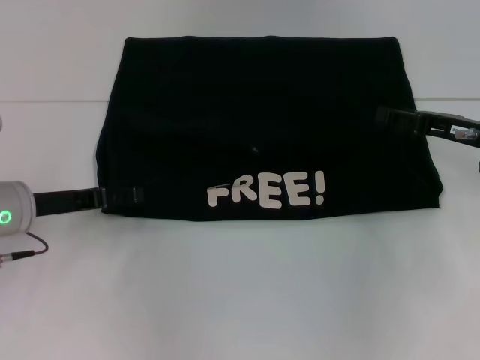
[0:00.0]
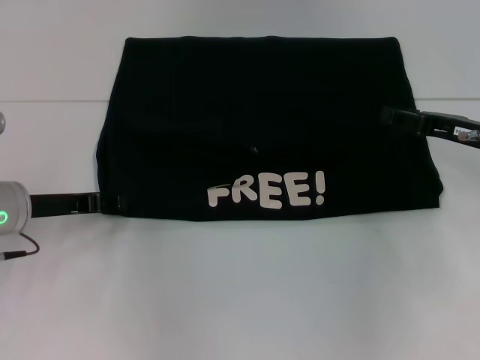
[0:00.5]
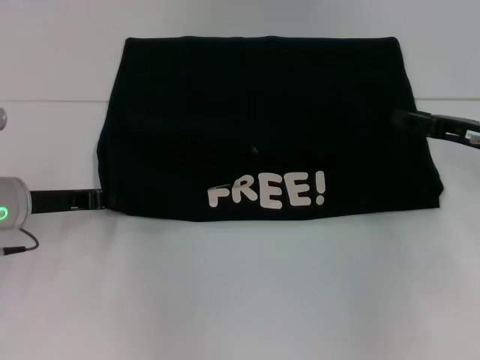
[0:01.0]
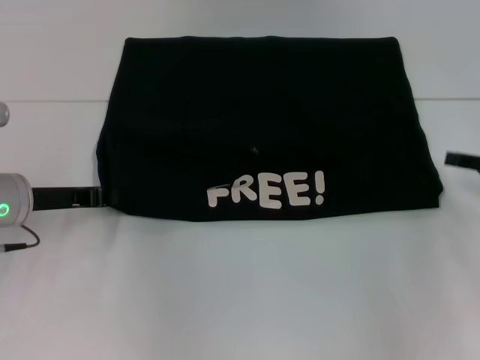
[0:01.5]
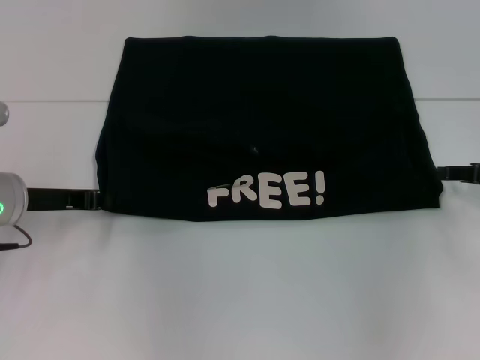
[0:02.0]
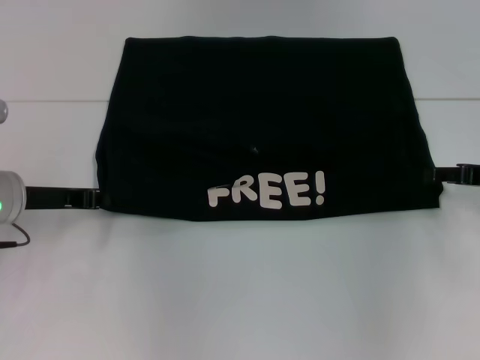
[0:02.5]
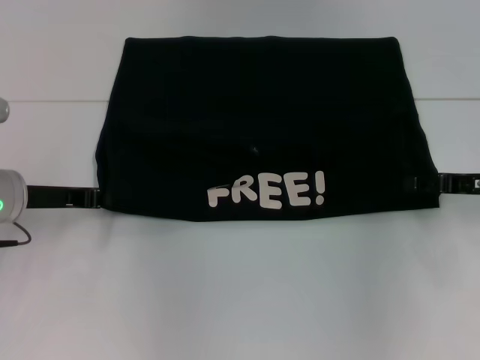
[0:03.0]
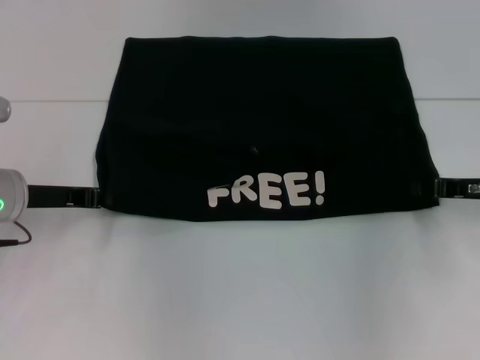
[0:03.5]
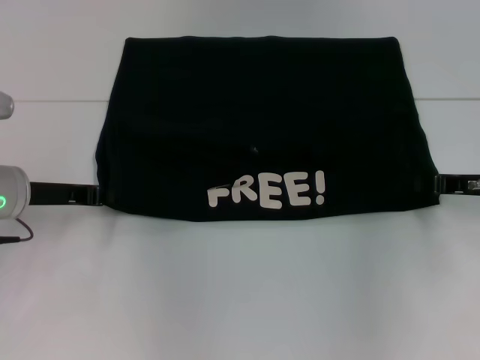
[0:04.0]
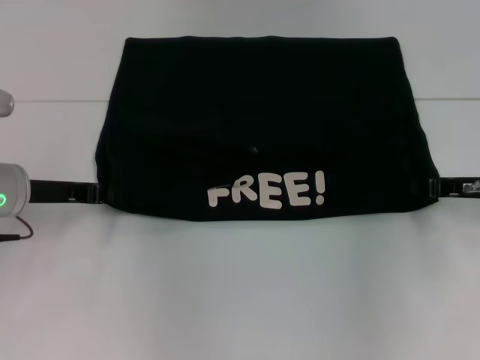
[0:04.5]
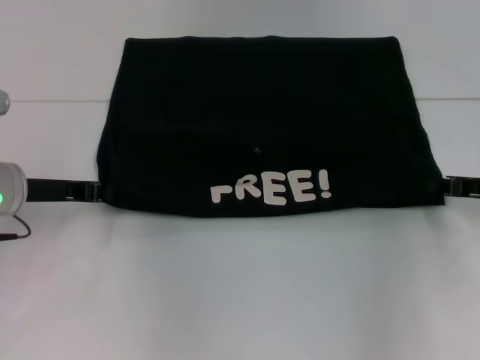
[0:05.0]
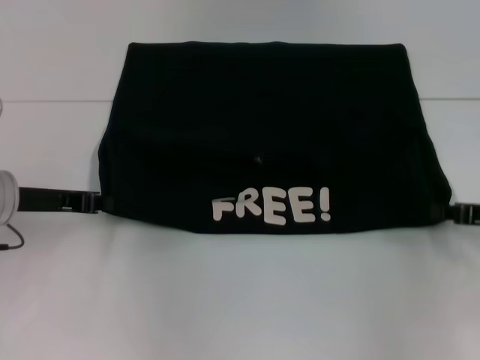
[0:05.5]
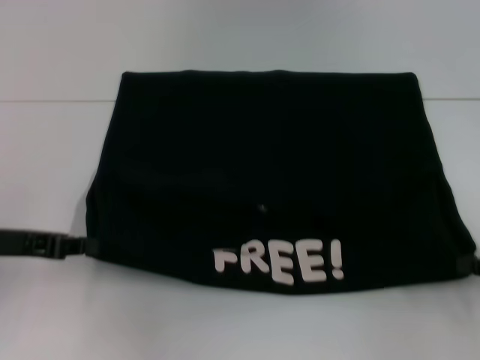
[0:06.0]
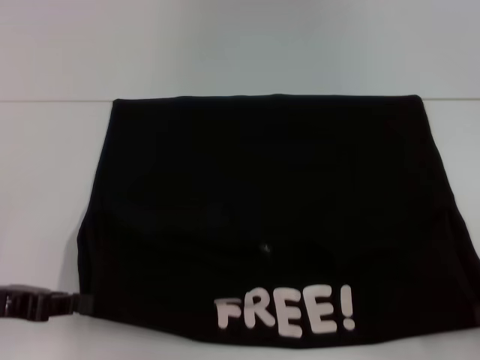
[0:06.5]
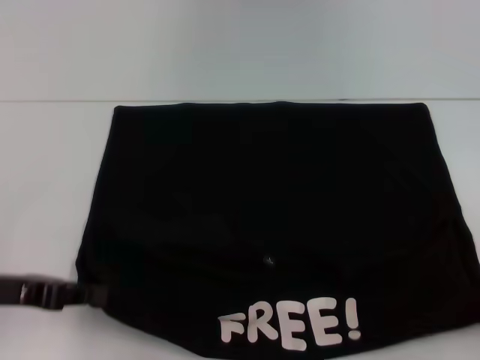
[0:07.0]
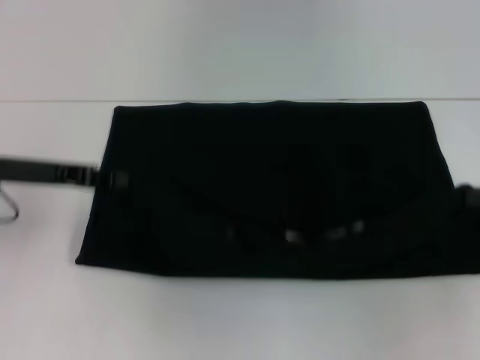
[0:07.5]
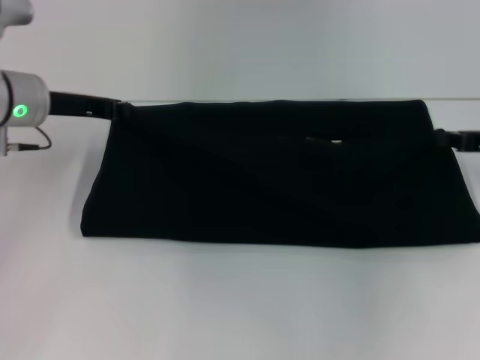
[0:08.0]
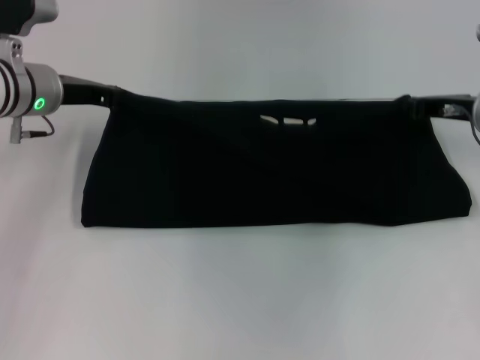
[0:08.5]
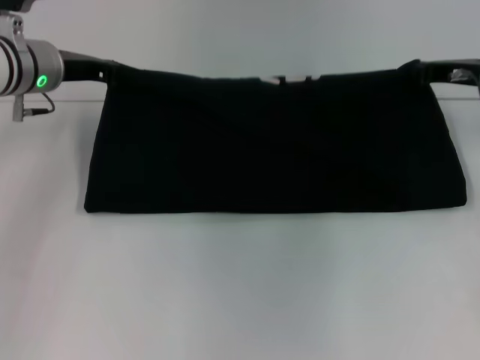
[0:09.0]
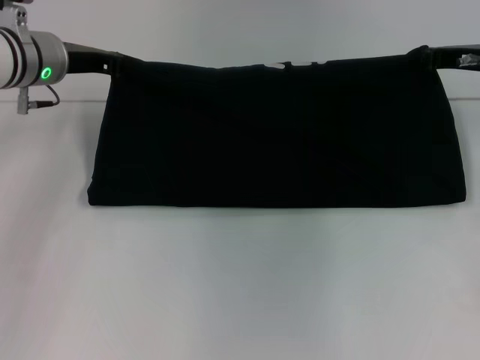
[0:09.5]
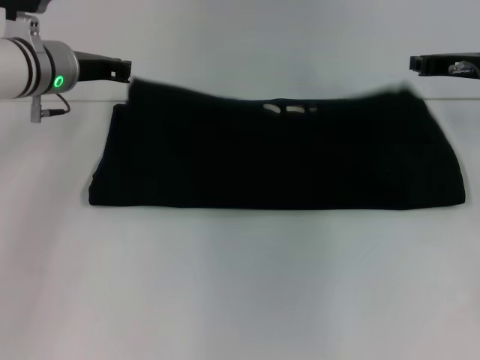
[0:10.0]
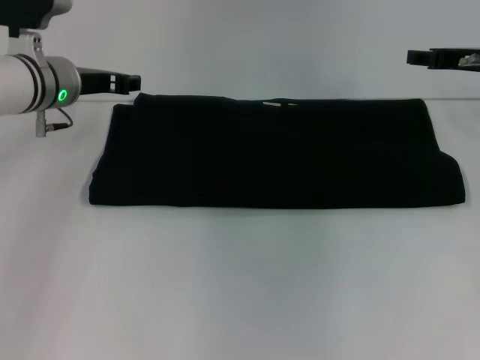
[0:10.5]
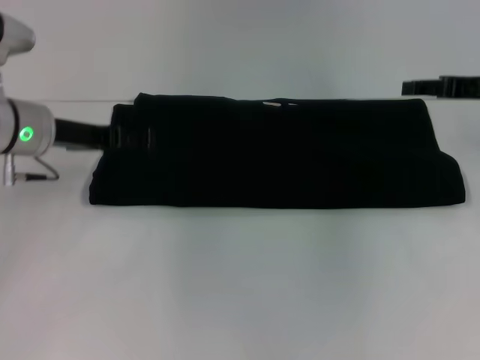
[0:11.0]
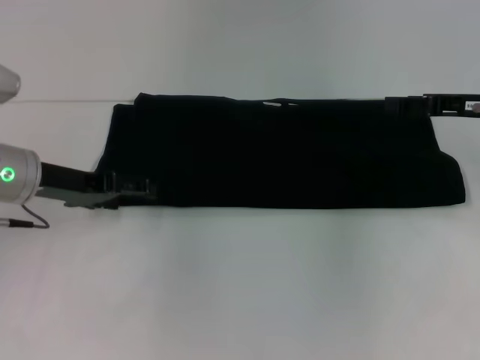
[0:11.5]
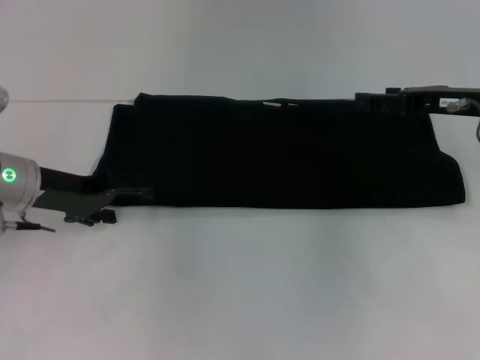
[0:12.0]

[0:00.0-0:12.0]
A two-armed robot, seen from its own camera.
Step, 0:00.0 to 0:06.5: Pull the clothes with your left hand.
Step, 0:00.0 to 0:06.5: Pull the clothes with your right hand.
Step, 0:07.0 to 0:11.0: Fold the clothes with your right hand.
0:00.0 to 0:02.0: The left gripper closes up. Meanwhile the right gripper shifts some 5 cm to the right.
0:02.0 to 0:04.0: The right gripper closes up.
0:04.0 to 0:06.0: The right gripper shifts some 10 cm backward and to the right. Meanwhile the left gripper travels backward by about 5 cm.
0:06.0 to 0:08.0: The grippers both shift forward by some 15 cm.
0:08.0 to 0:10.0: The right gripper shifts roughly 10 cm forward and to the left.
0:10.0 to 0:12.0: The left gripper travels backward by some 10 cm, and opens its fingers. Meanwhile the right gripper opens.

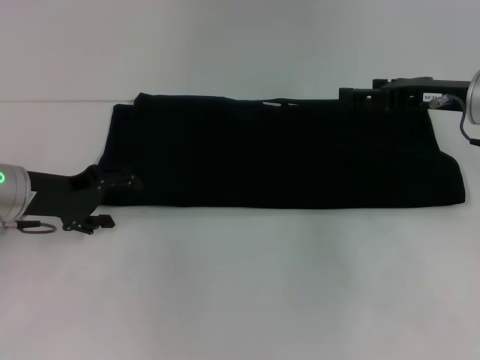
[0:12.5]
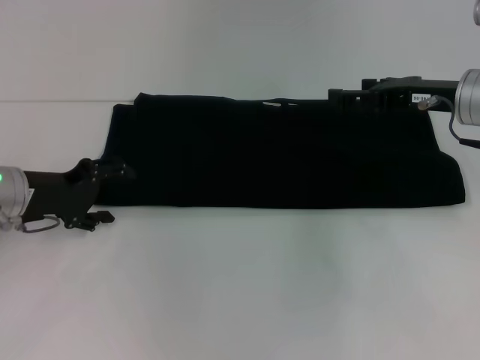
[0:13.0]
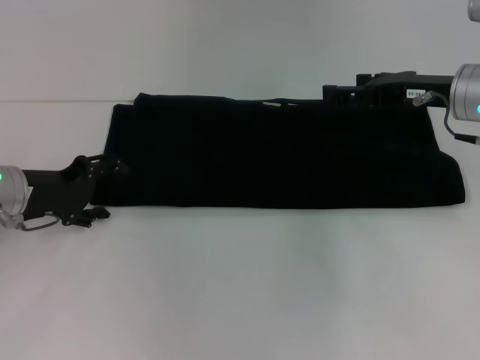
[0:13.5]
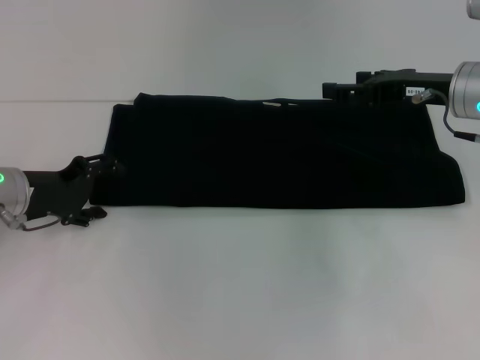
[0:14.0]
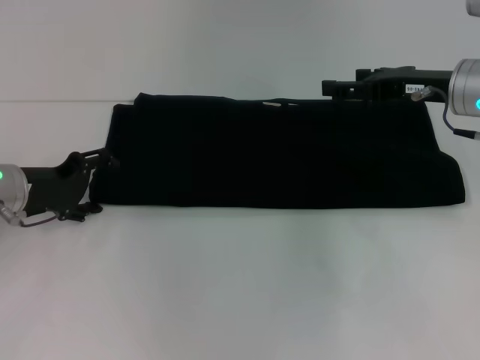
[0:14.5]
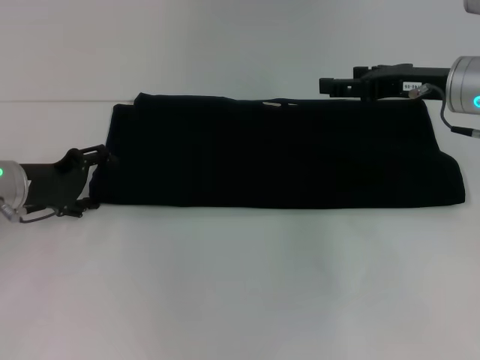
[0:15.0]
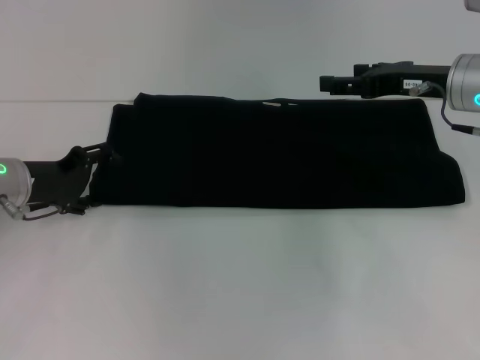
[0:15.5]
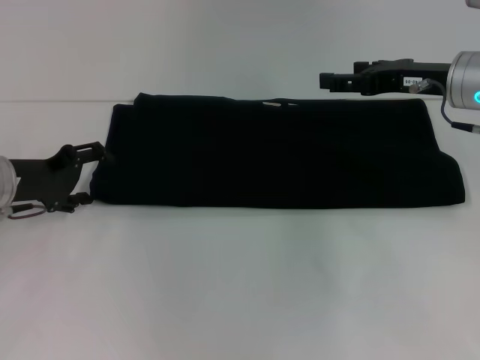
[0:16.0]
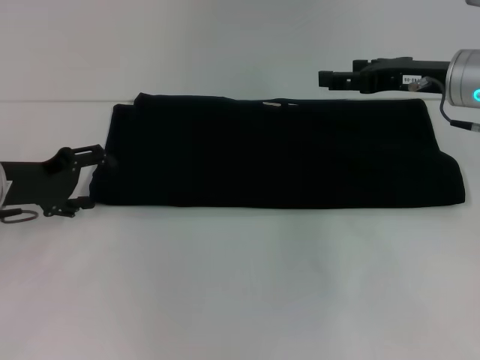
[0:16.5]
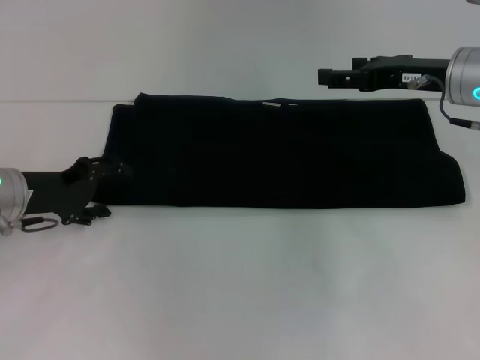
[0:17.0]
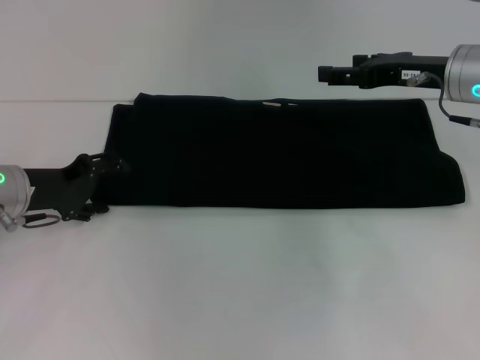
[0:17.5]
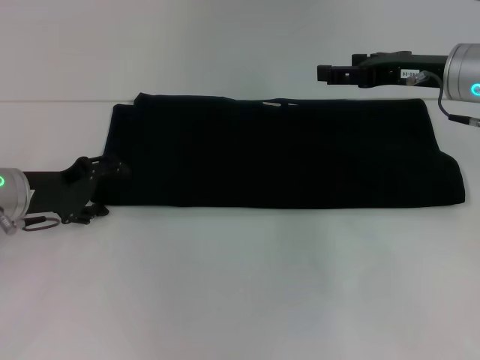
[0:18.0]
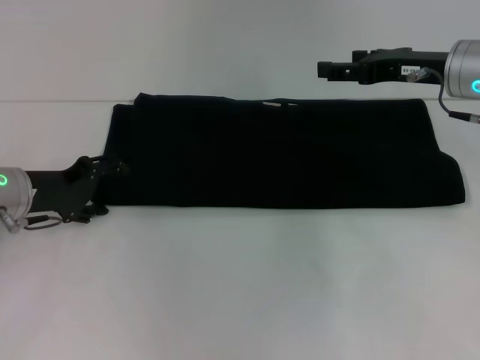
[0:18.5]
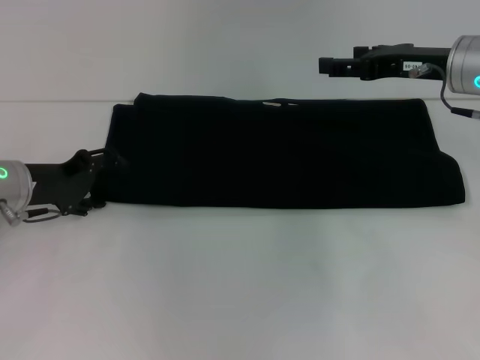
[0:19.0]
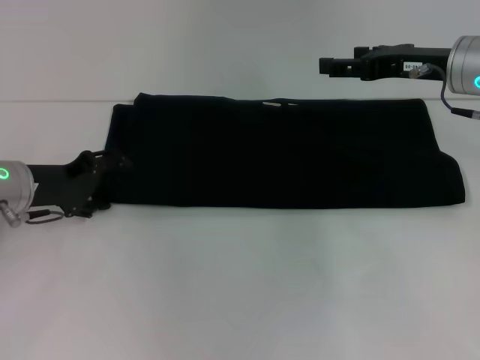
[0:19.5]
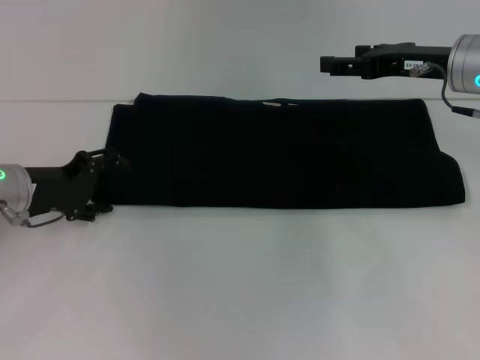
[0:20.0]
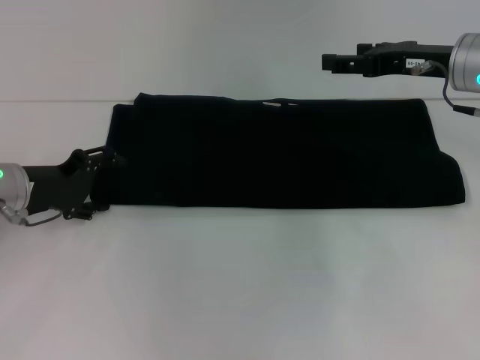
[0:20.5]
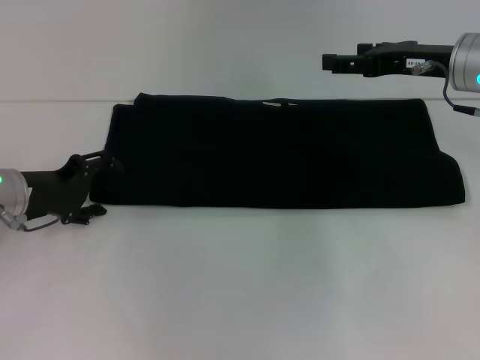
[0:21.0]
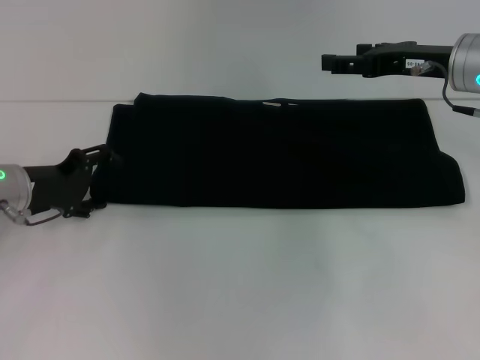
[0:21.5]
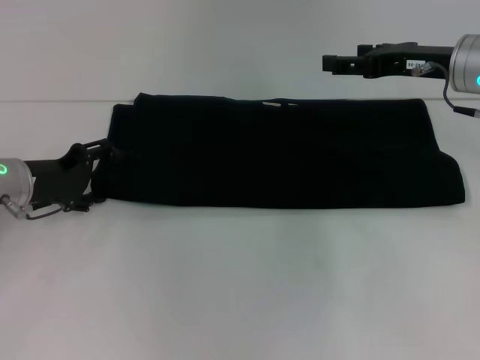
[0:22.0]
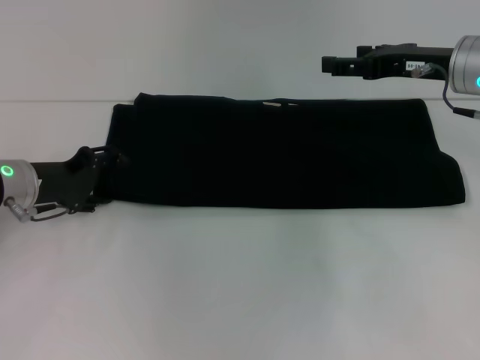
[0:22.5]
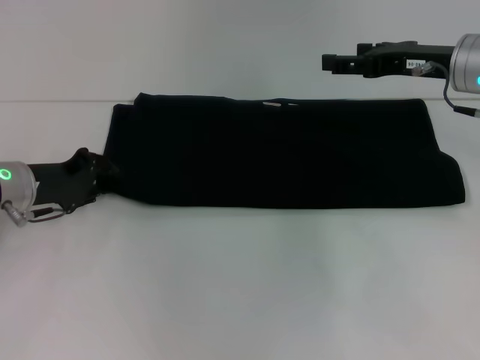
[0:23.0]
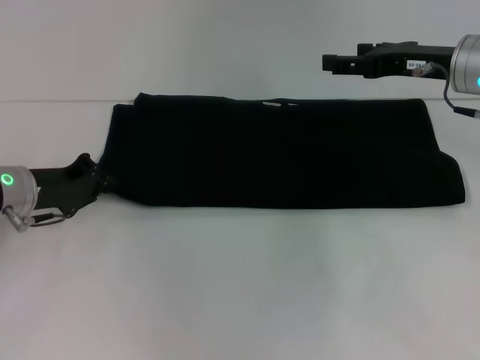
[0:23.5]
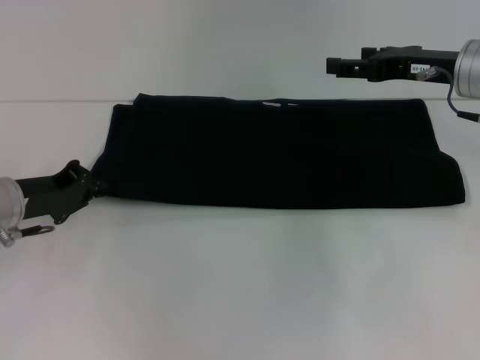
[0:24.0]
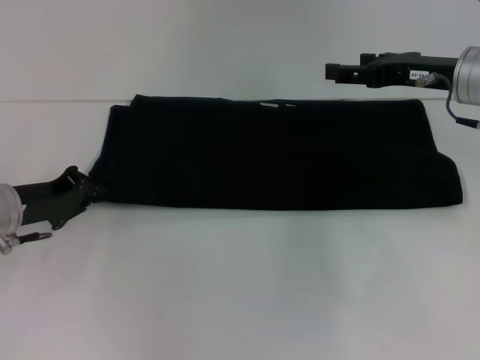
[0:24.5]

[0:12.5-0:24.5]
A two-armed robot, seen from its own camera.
0:12.5 to 0:20.5: The grippers make only small movements.
0:20.5 to 0:22.5: Both grippers stay about where they are.
0:22.5 to 0:24.5: The left gripper closes up.

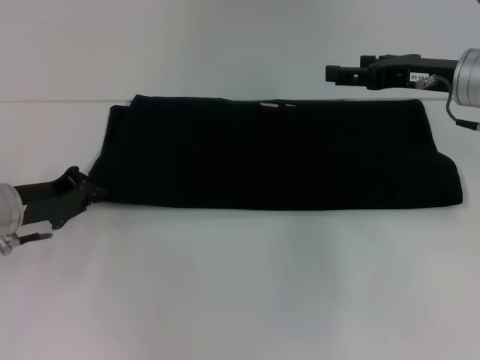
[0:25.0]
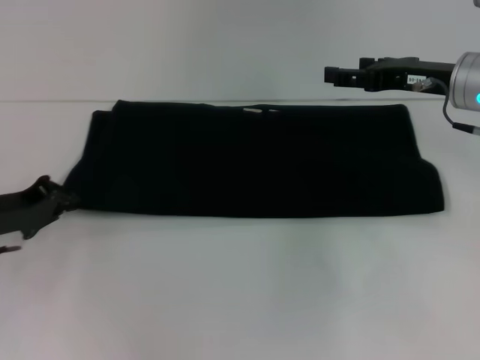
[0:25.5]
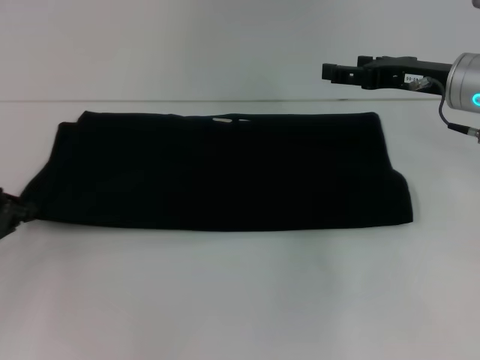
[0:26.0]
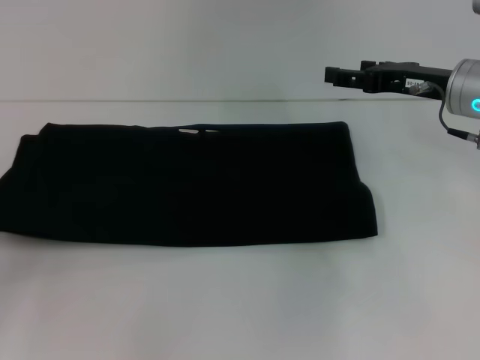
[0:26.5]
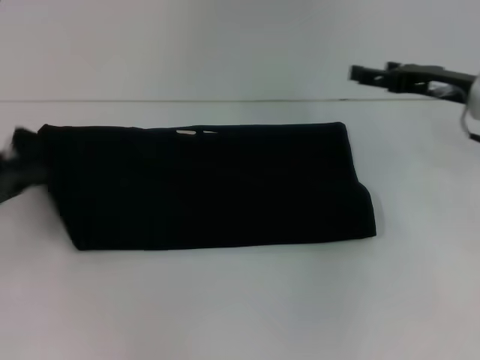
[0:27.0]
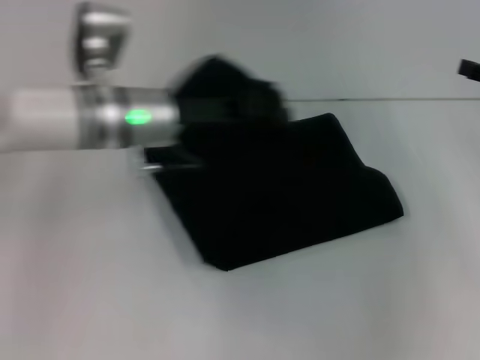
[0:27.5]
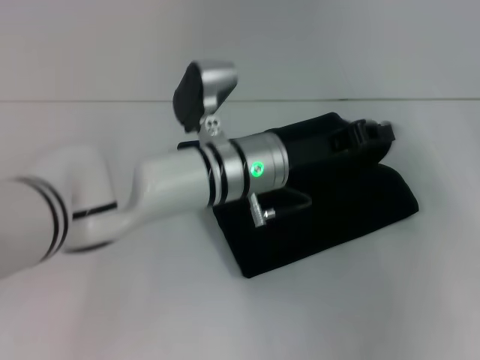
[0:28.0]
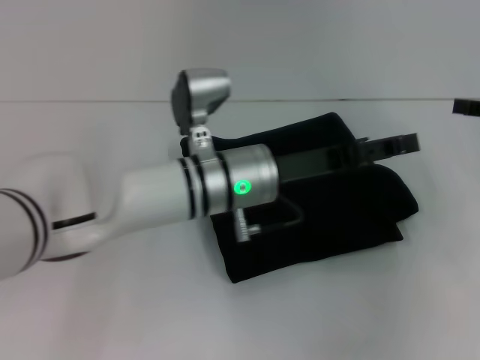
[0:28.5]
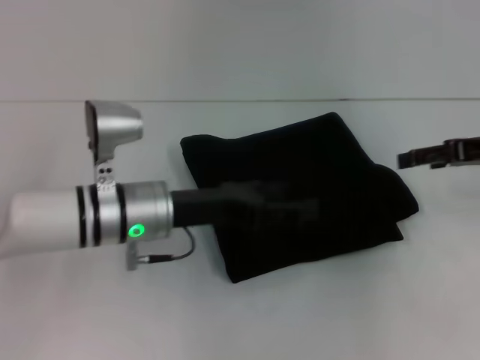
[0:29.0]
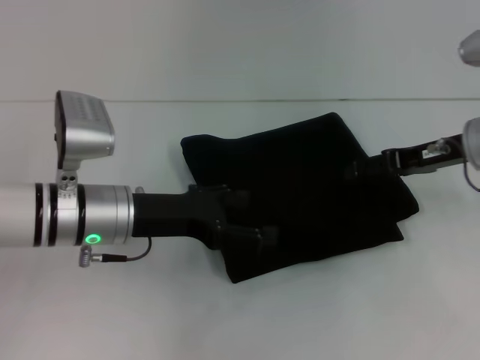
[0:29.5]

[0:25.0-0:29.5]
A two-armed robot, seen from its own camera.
0:25.0 to 0:27.0: The left gripper heads to the left and upward, covering approximately 10 cm.
0:27.0 to 0:29.5: The left gripper travels to the right by some 20 cm, and opens its fingers. The right gripper moves some 10 cm to the right and comes back.
